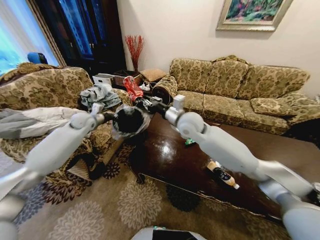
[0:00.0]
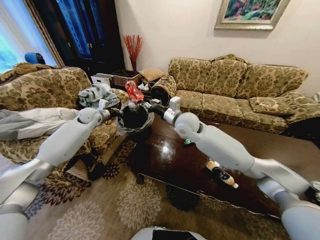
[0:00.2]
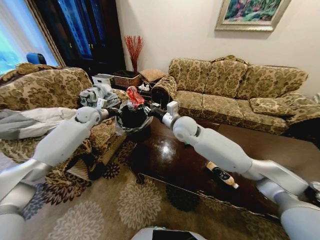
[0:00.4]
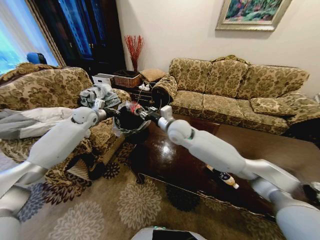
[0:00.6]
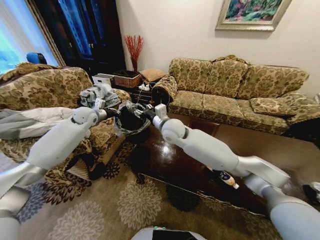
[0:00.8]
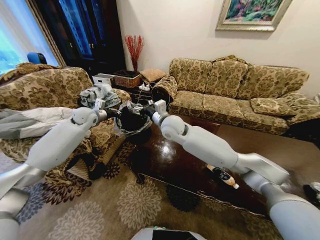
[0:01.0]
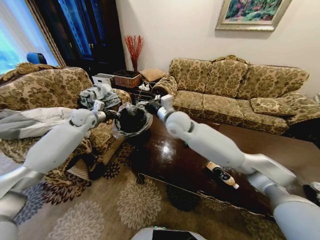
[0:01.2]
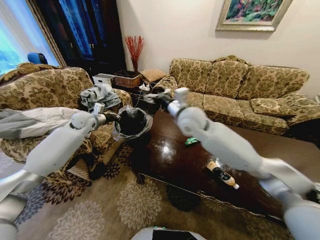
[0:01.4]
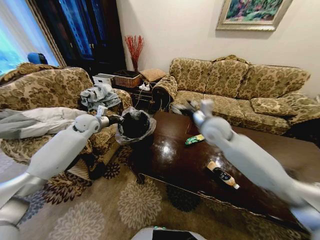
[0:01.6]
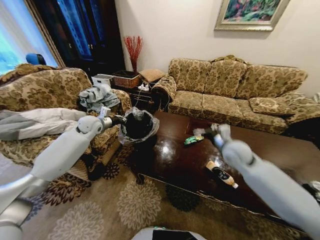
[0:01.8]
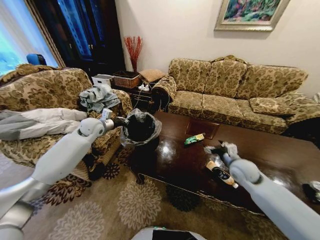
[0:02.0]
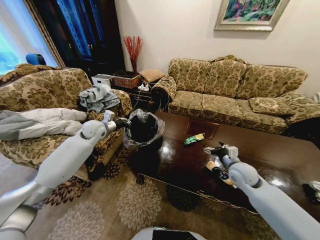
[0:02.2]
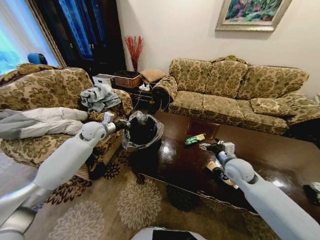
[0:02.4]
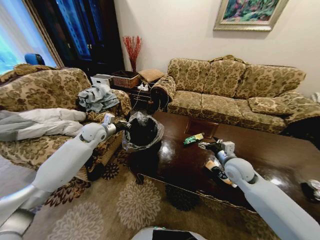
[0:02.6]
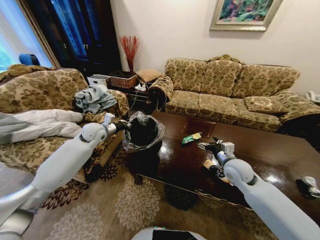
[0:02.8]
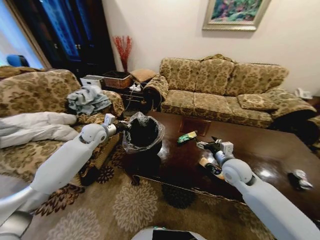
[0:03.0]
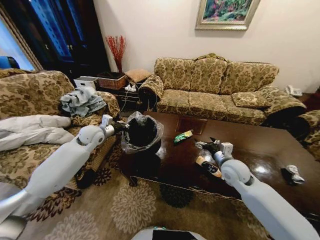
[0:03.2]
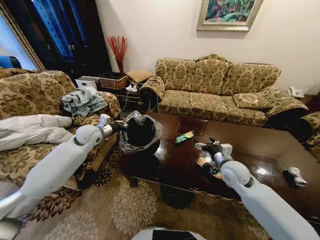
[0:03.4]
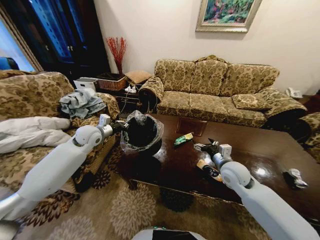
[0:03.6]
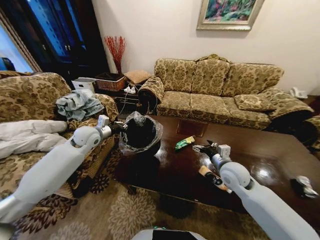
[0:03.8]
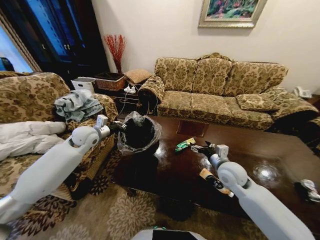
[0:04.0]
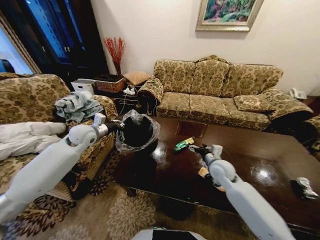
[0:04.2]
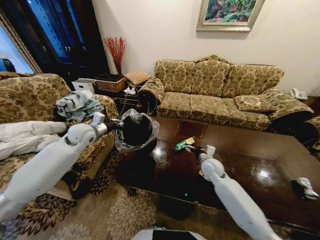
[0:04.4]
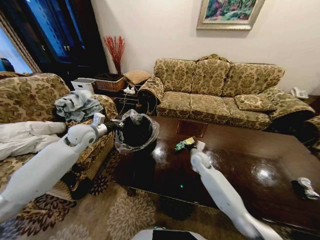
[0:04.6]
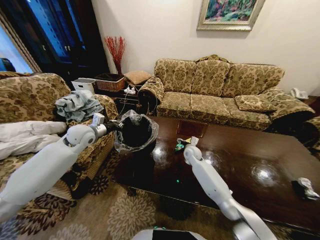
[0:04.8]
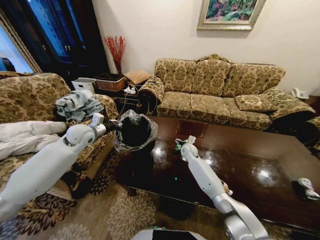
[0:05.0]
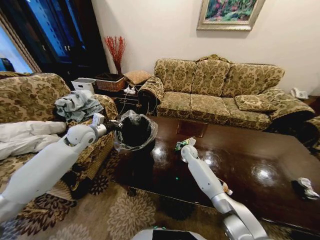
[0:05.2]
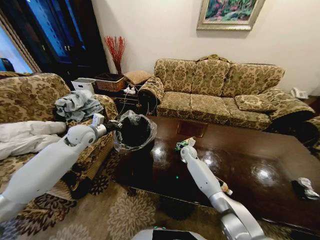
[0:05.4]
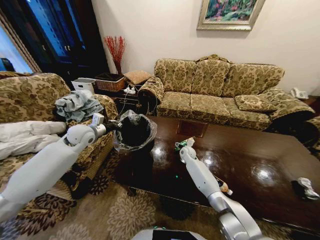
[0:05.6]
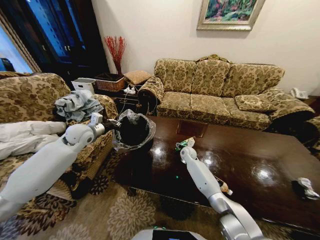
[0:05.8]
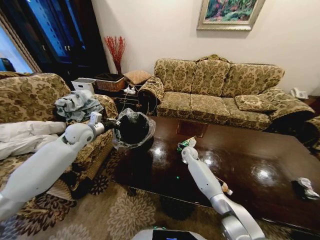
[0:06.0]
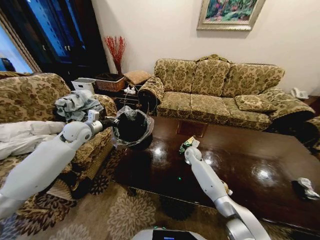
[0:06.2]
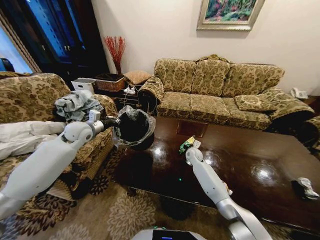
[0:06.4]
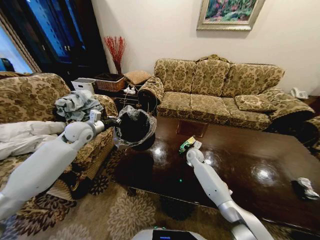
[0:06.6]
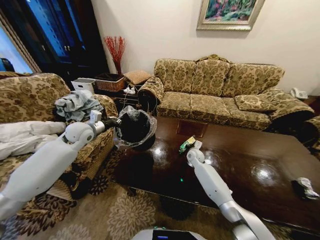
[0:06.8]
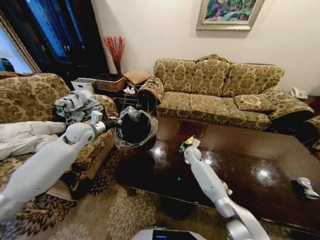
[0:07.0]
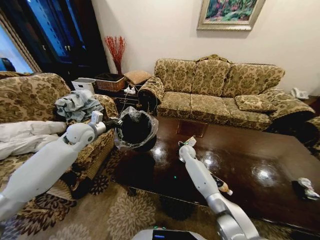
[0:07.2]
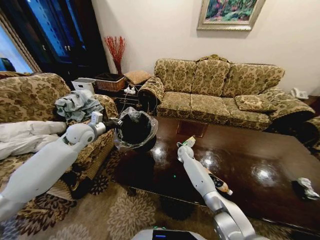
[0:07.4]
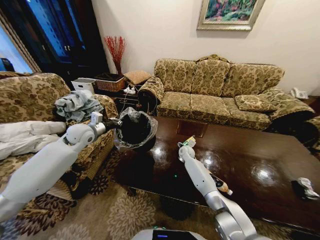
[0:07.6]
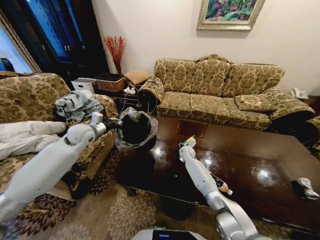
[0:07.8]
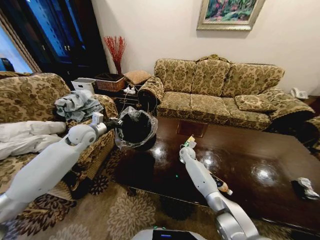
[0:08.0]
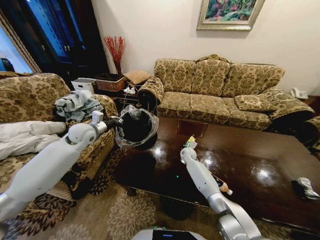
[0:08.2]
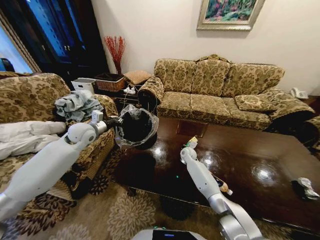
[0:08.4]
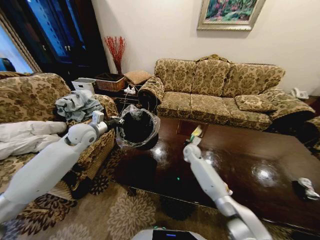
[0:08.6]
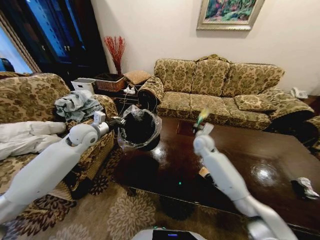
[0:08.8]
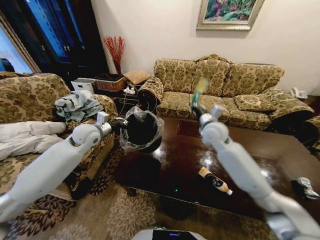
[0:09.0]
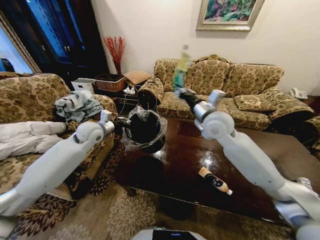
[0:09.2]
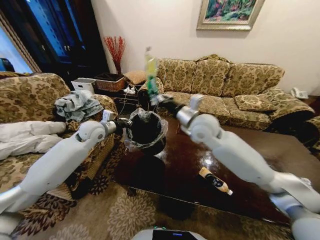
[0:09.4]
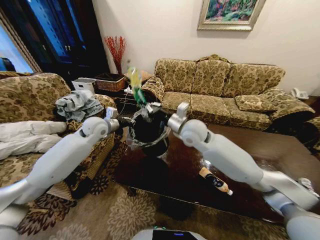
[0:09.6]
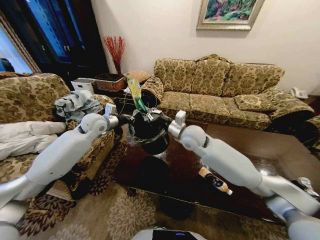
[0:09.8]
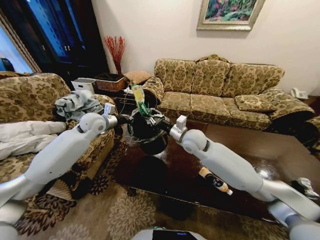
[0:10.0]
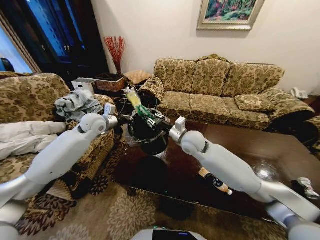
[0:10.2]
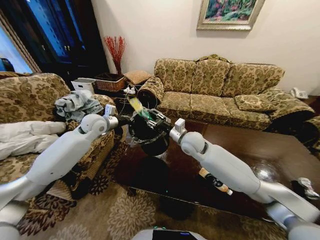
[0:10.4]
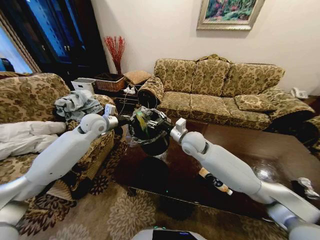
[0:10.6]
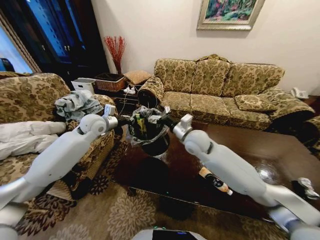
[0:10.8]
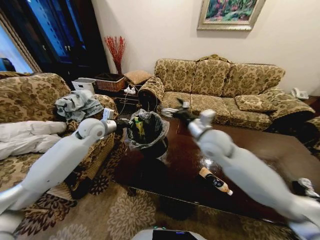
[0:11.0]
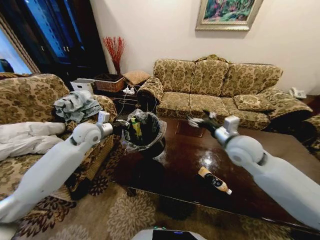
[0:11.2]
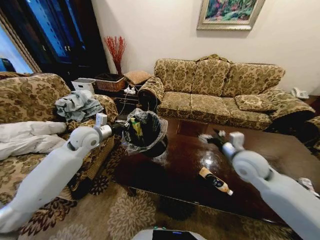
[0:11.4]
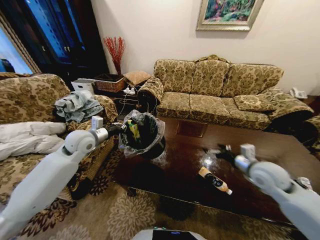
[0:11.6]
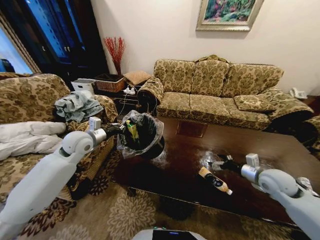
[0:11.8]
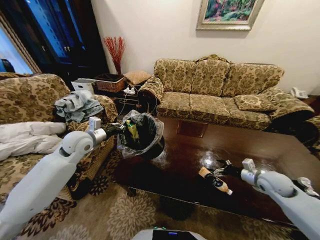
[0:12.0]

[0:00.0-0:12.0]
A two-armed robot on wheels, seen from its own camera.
Task of the whole recording: Move to the front of the table and place the trash on the table into the trash bin.
0:00.0 to 0:01.6: The right gripper heads to the right, covering roughly 10 cm, and opens.
0:01.6 to 0:03.0: The left gripper changes place by about 5 cm. Meanwhile the right gripper goes approximately 20 cm downward, to the right and backward.
0:03.0 to 0:04.4: The right gripper moves downward, forward and to the left, roughly 10 cm.
0:04.4 to 0:06.0: The right gripper travels forward, to the left and downward by about 15 cm.
0:06.0 to 0:07.6: The right gripper closes, then reopens.
0:07.6 to 0:09.0: The right gripper goes about 25 cm upward, and closes its fingers.
0:09.0 to 0:10.4: The left gripper moves about 5 cm. Meanwhile the right gripper heads to the left, covering about 10 cm, moves about 10 cm upward and comes back, and opens up.
0:10.4 to 0:12.0: The left gripper travels backward by roughly 10 cm; the right gripper shifts some 35 cm to the right, and opens.

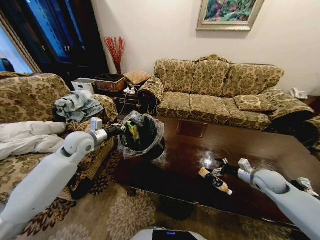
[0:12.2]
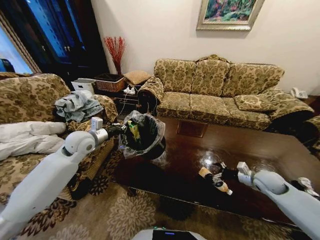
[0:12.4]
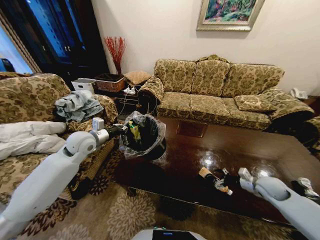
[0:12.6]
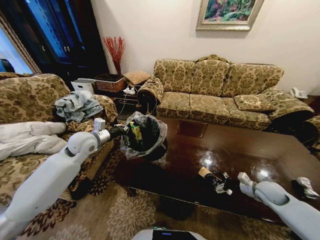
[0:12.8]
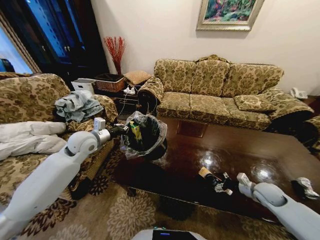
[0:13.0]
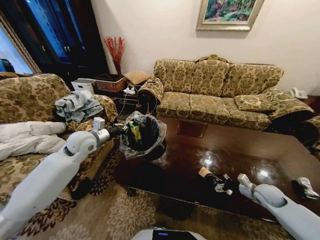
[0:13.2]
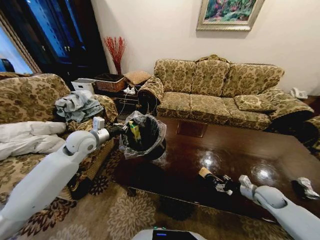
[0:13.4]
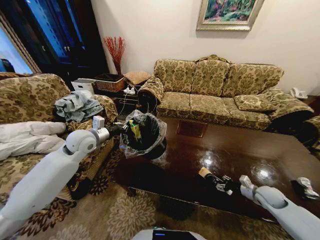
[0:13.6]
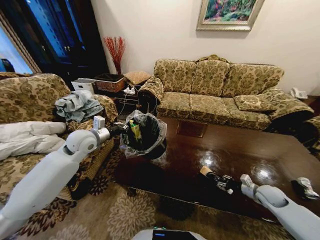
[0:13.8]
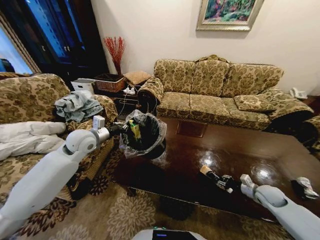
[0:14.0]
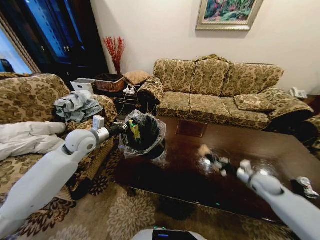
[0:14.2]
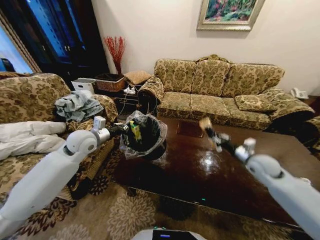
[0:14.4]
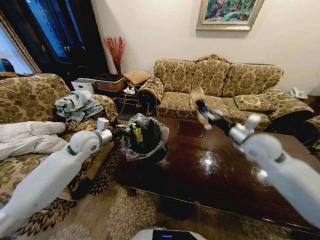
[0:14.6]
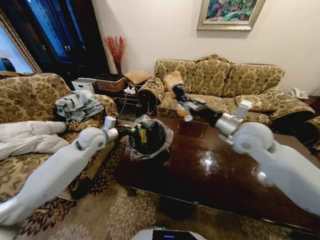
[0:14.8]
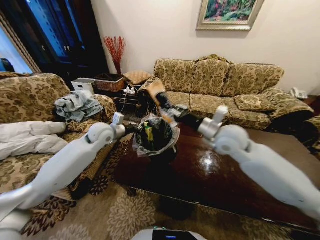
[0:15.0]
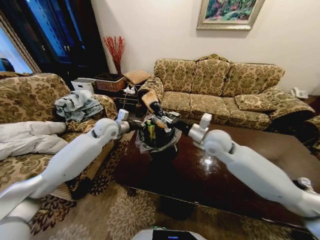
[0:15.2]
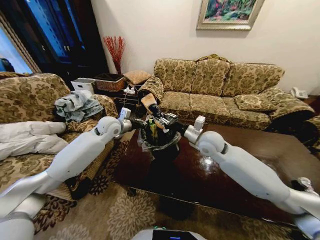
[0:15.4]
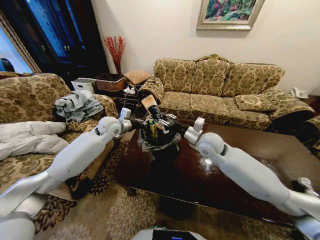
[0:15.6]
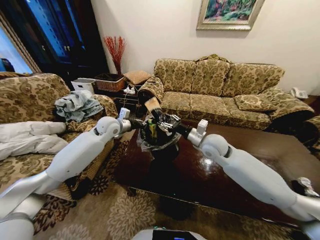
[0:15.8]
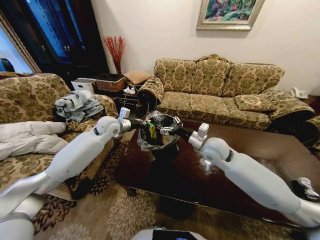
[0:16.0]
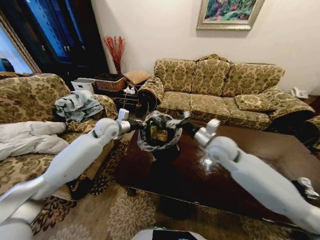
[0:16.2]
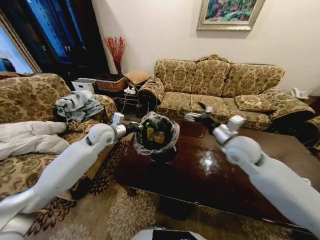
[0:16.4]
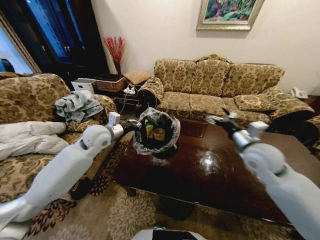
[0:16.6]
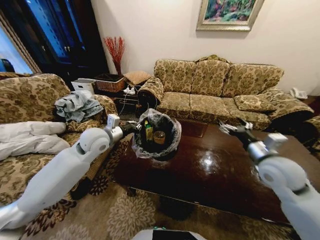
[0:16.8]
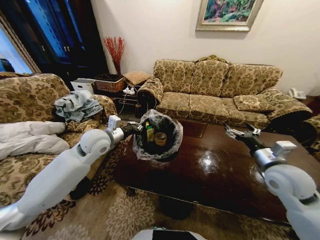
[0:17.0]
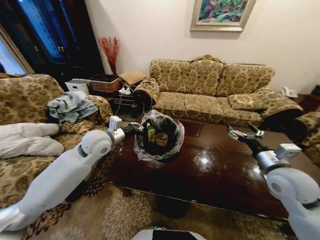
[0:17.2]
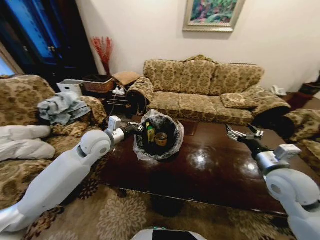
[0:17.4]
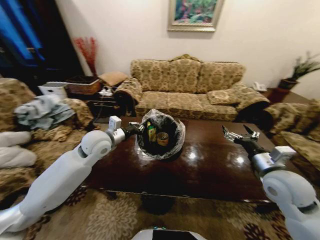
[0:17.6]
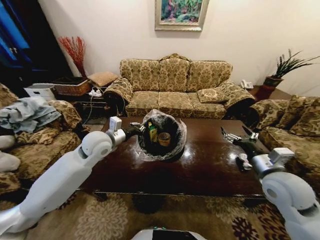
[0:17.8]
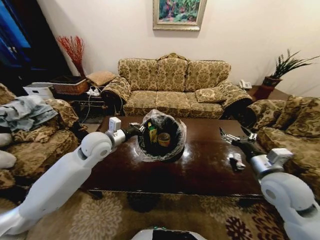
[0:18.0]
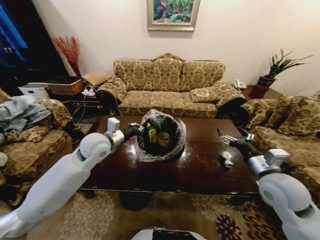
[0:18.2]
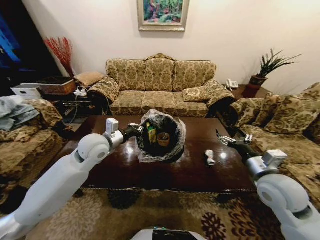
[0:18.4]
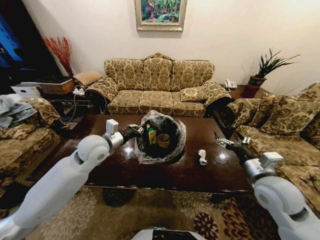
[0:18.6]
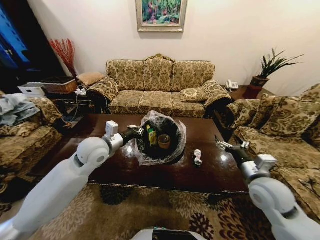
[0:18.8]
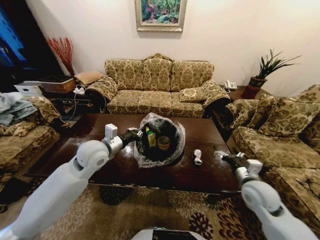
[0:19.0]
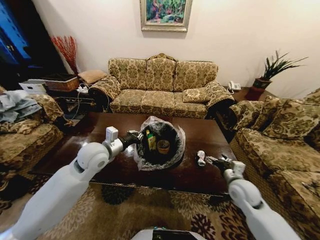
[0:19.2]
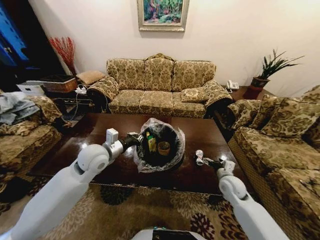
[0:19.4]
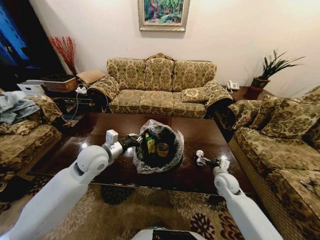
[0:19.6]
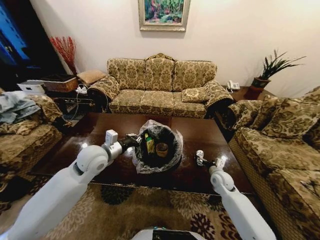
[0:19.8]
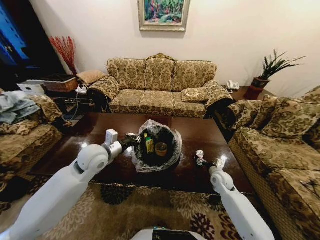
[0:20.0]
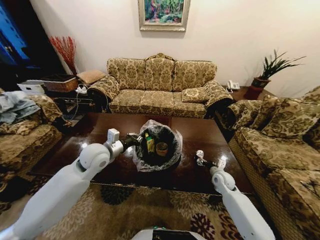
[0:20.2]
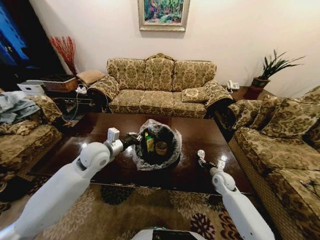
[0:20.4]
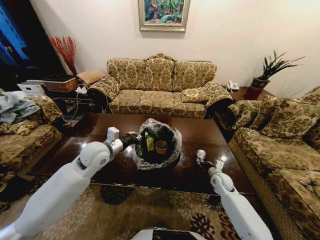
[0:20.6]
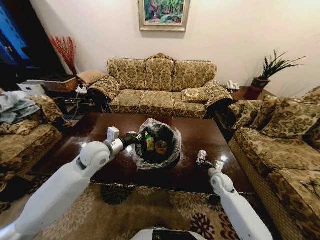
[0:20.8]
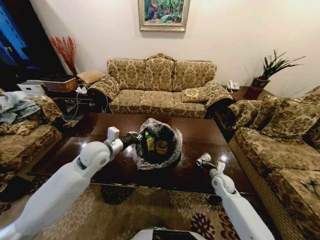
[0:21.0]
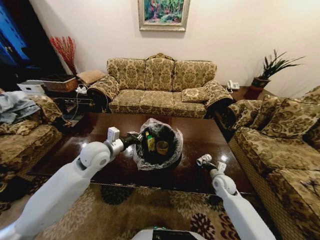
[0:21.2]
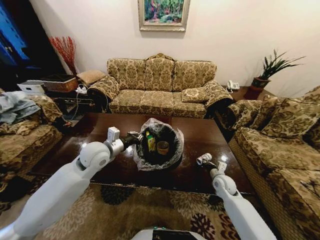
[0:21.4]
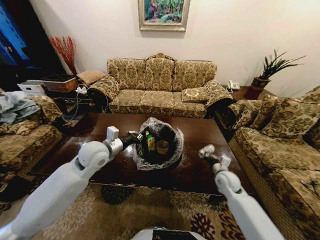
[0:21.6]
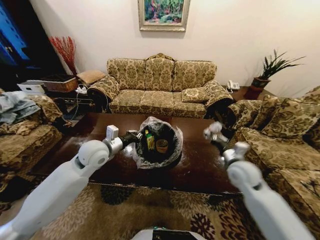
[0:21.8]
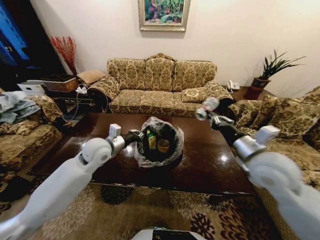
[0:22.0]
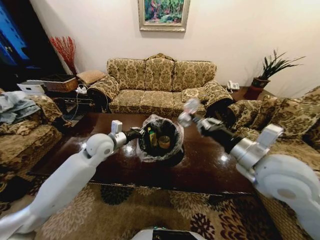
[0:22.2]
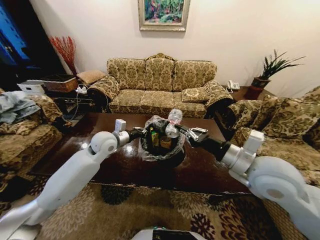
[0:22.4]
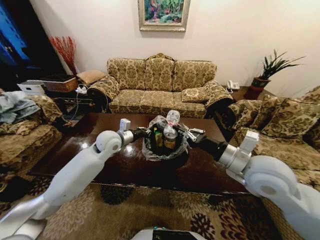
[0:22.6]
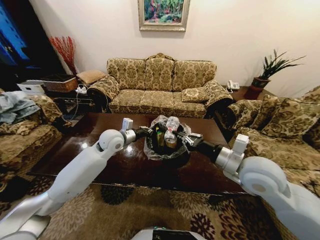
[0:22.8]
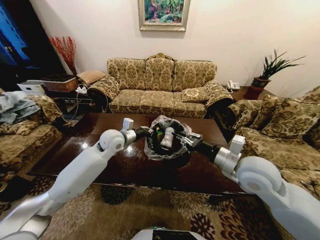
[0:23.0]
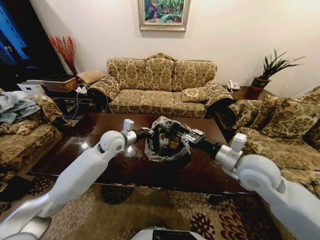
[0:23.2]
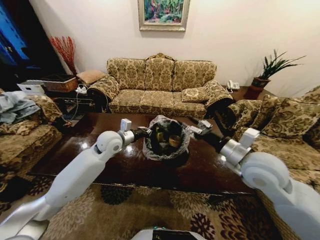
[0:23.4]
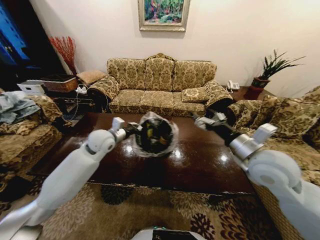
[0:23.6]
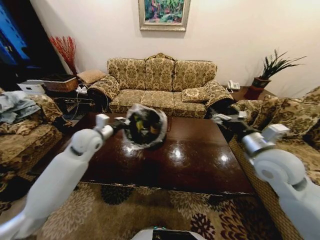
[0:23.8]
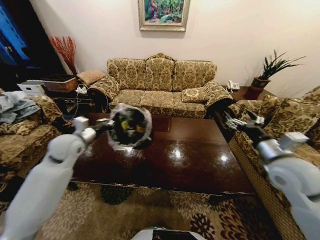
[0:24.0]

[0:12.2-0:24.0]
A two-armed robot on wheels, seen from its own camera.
Task of the whole recording: Move to the front of the table and place the trash on the table into the trash bin.
0:12.2 to 0:13.6: The right gripper is displaced downward by some 10 cm.
0:13.6 to 0:15.2: The left gripper is displaced forward and to the right by about 10 cm, while the right gripper is displaced to the left and upward by about 40 cm, and closes its fingers.
0:15.2 to 0:16.6: The right gripper heads to the right and backward, covering about 15 cm, and opens, while the left gripper travels backward by approximately 5 cm.
0:16.6 to 0:18.2: The right gripper goes roughly 10 cm backward.
0:18.2 to 0:19.6: The right gripper shifts some 20 cm downward and forward.
0:19.6 to 0:21.0: The right gripper shifts by roughly 5 cm, and closes up.
0:21.0 to 0:22.6: The left gripper goes about 5 cm forward, while the right gripper travels upward by some 30 cm.
0:22.6 to 0:24.0: The left gripper moves to the left, approximately 15 cm; the right gripper is displaced to the right by some 10 cm, and opens its fingers.
